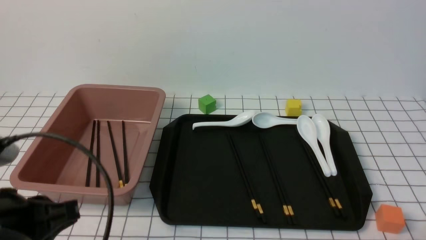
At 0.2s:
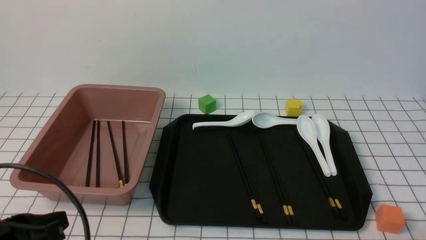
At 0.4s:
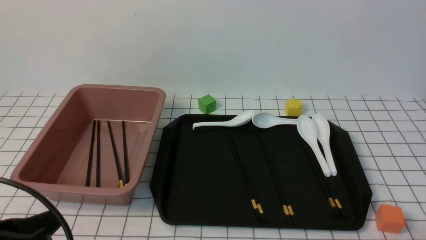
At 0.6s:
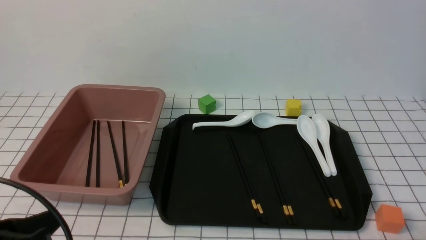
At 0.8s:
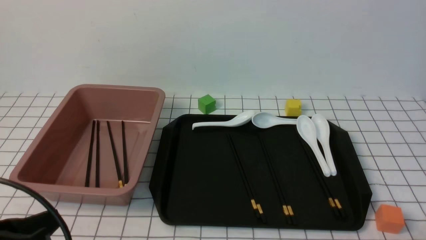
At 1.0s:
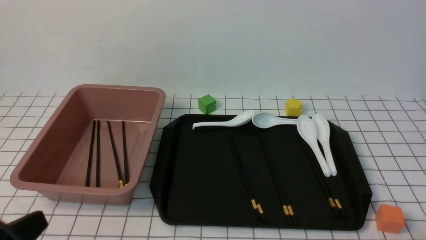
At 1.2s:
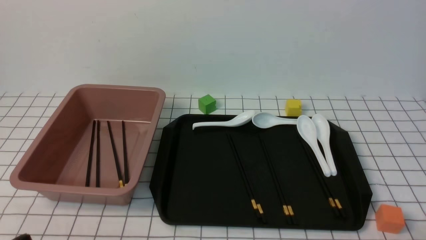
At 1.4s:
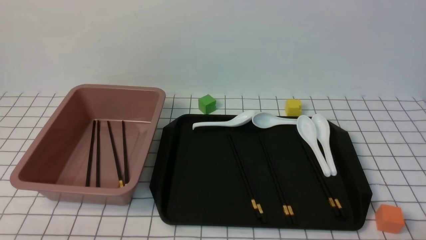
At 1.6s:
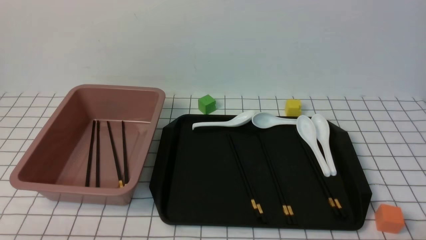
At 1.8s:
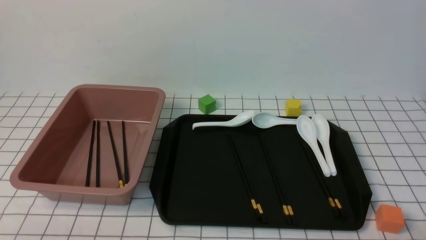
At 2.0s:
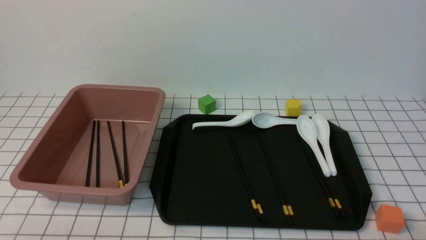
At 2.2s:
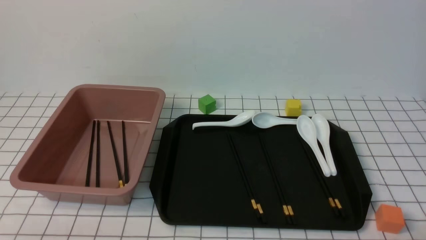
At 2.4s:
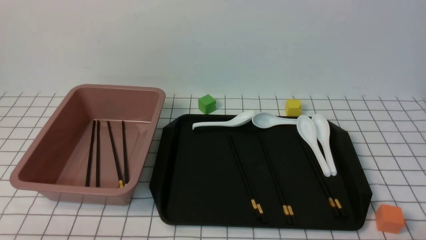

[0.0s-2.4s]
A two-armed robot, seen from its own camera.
0.0s to 1.2s: The left gripper is displaced backward and downward by some 15 cm.
